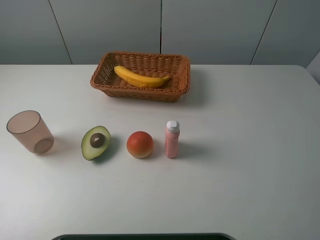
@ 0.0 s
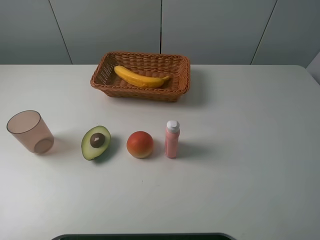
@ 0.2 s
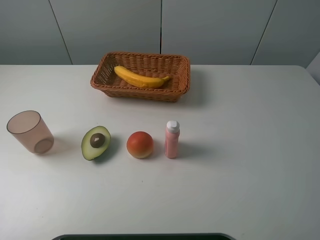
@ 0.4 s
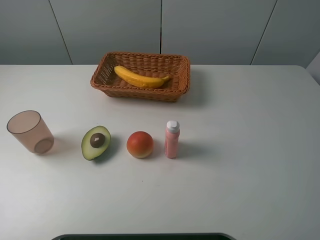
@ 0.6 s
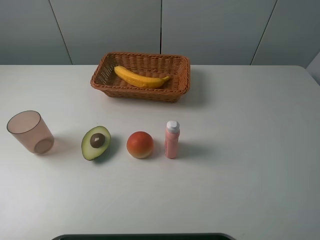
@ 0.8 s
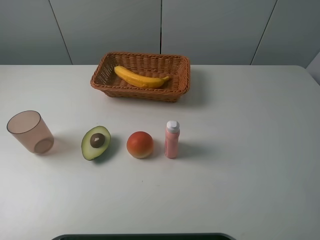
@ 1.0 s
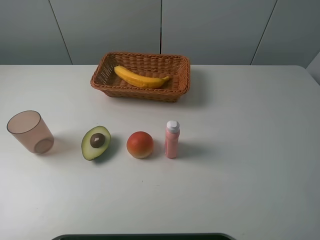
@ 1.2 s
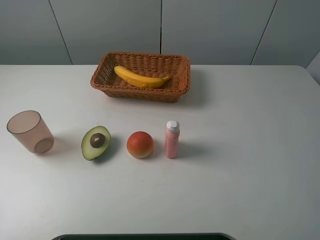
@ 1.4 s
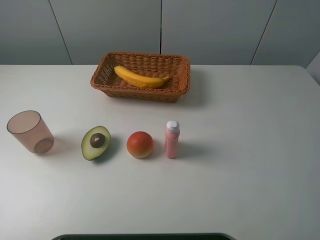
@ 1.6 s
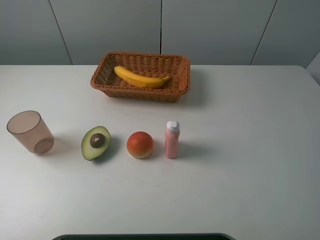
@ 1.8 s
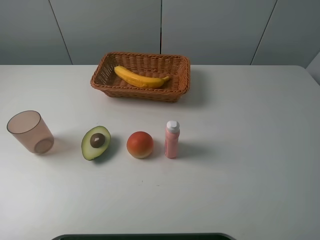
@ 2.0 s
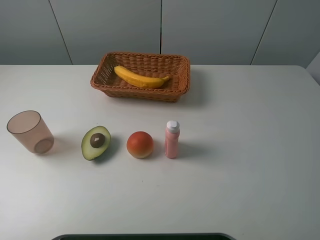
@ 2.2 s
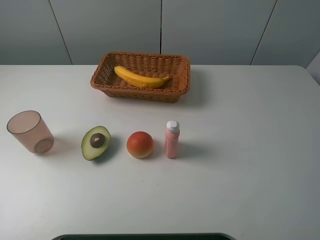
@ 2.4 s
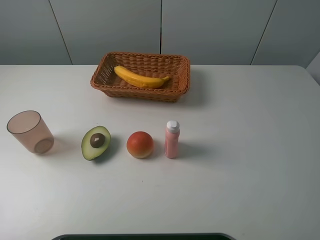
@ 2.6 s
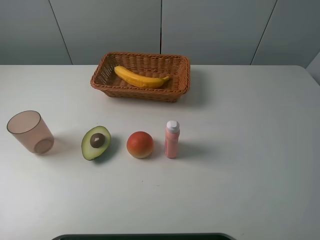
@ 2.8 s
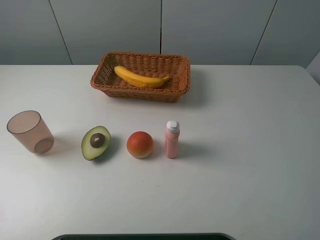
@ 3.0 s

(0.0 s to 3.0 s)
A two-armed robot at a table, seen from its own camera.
Task of the whole recording: randomly pick up an item from the table and put it in the basket.
1.6 s - 3.0 s: Both grippers stay about where they are.

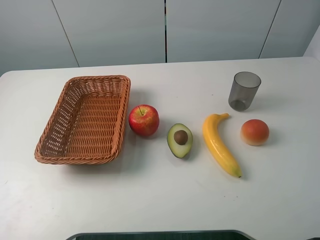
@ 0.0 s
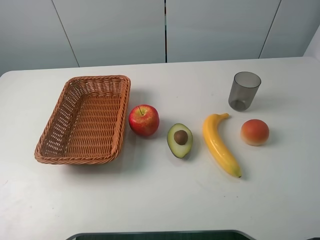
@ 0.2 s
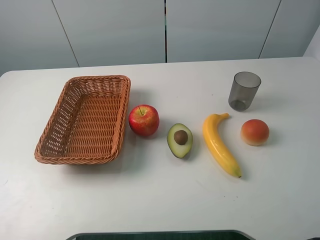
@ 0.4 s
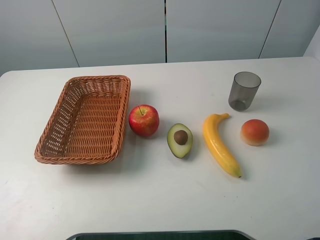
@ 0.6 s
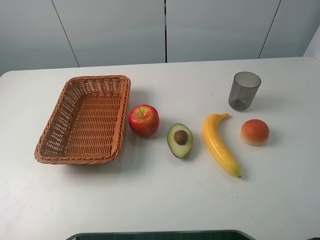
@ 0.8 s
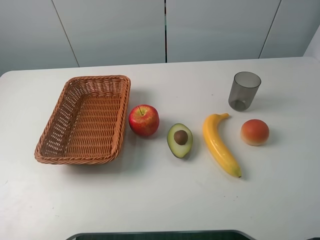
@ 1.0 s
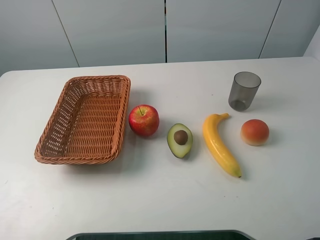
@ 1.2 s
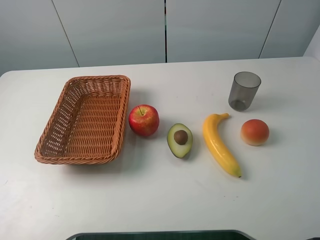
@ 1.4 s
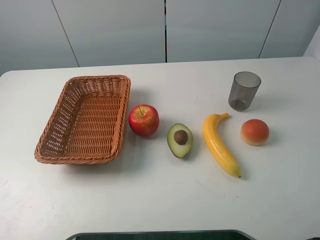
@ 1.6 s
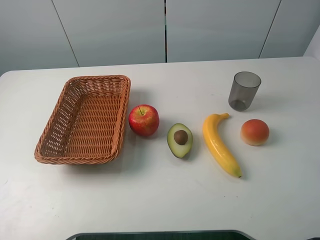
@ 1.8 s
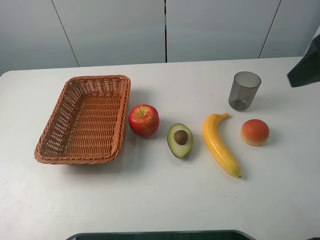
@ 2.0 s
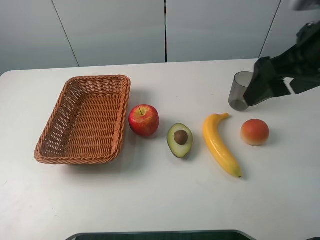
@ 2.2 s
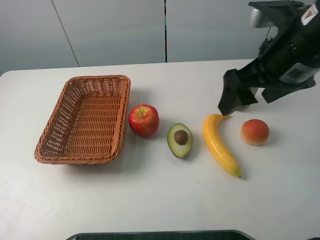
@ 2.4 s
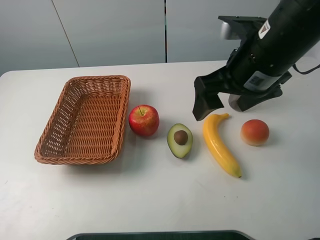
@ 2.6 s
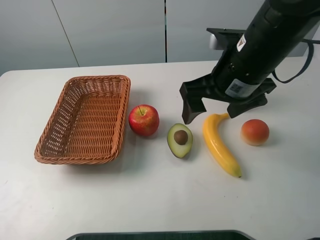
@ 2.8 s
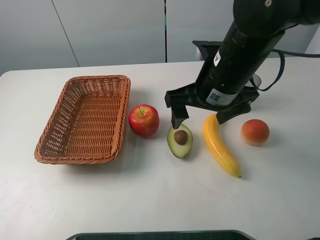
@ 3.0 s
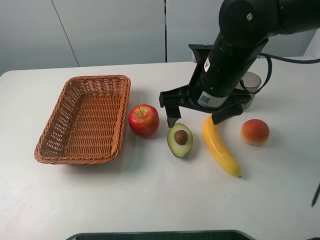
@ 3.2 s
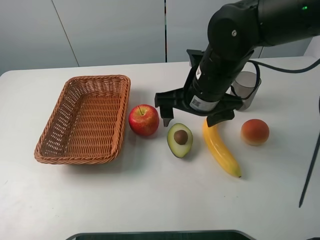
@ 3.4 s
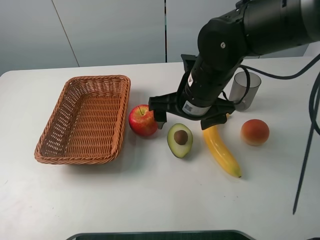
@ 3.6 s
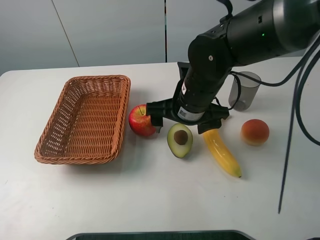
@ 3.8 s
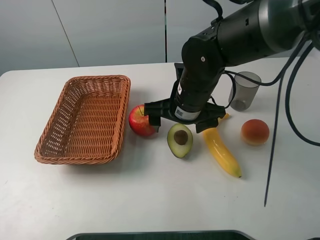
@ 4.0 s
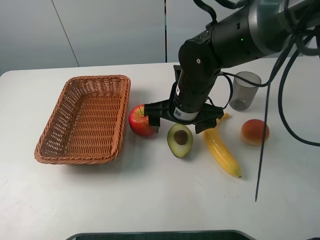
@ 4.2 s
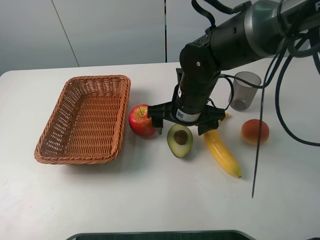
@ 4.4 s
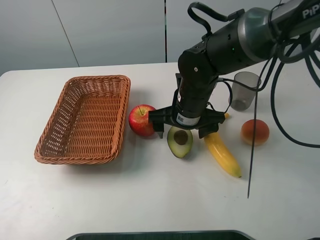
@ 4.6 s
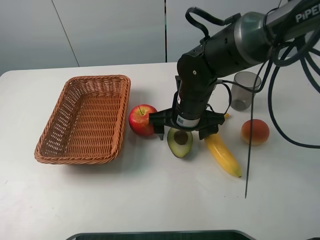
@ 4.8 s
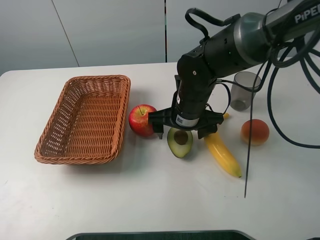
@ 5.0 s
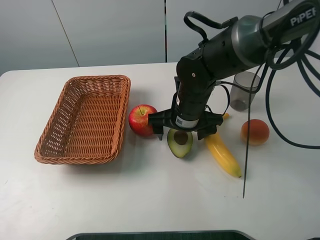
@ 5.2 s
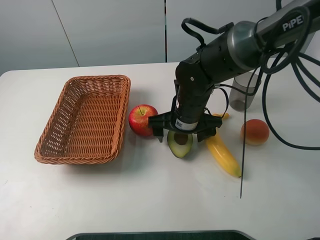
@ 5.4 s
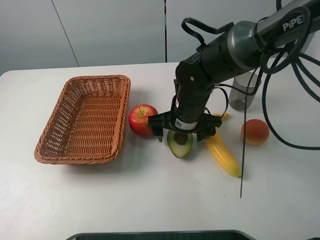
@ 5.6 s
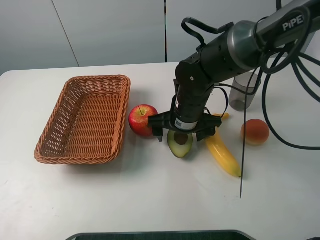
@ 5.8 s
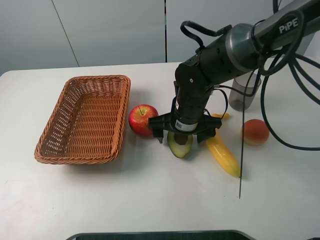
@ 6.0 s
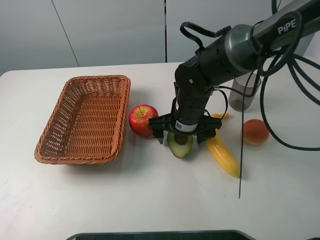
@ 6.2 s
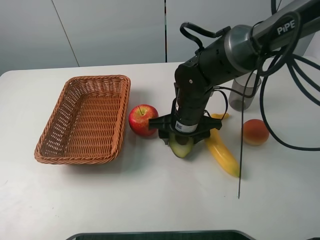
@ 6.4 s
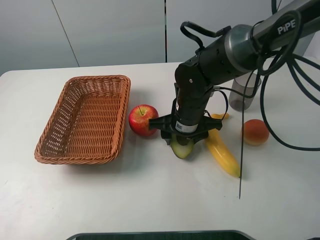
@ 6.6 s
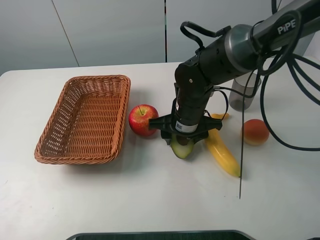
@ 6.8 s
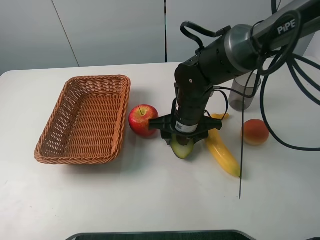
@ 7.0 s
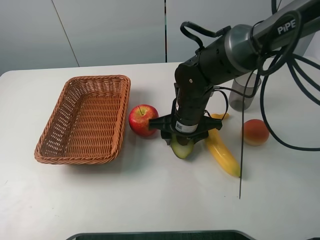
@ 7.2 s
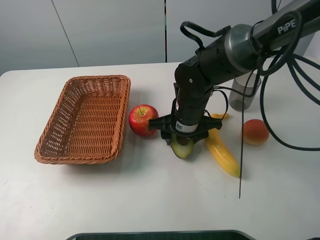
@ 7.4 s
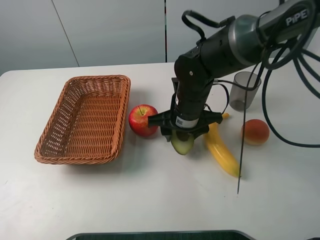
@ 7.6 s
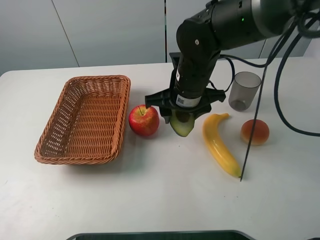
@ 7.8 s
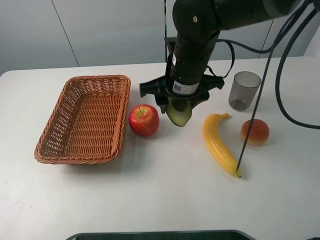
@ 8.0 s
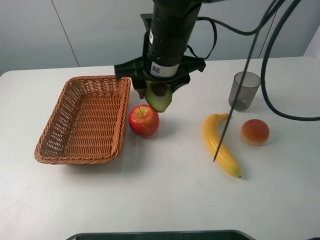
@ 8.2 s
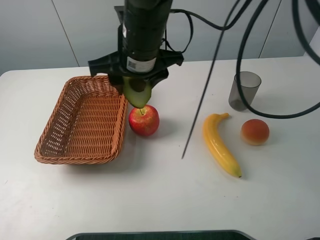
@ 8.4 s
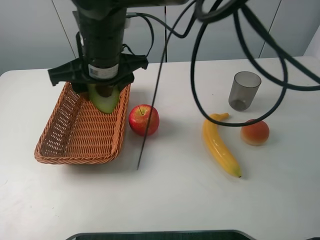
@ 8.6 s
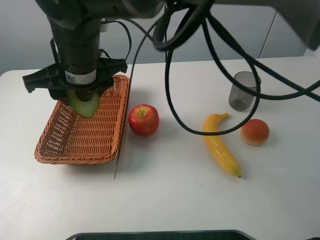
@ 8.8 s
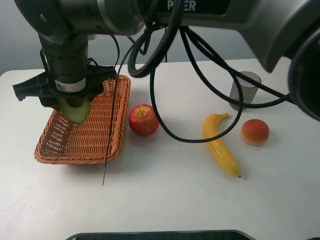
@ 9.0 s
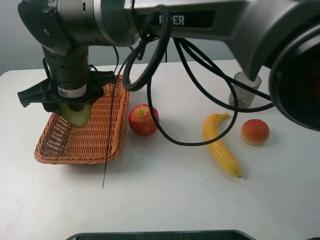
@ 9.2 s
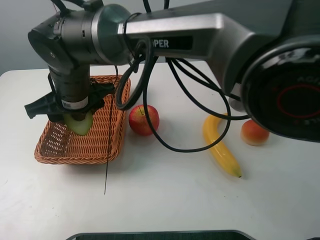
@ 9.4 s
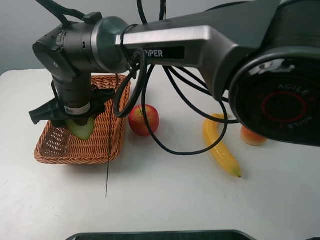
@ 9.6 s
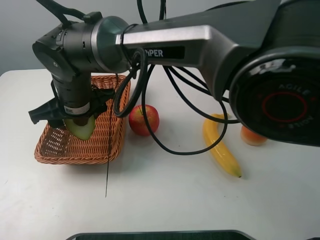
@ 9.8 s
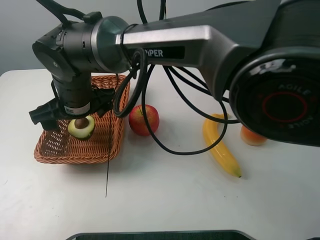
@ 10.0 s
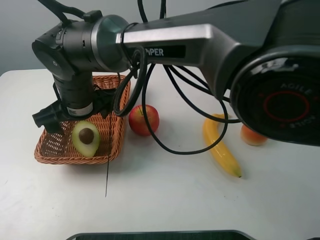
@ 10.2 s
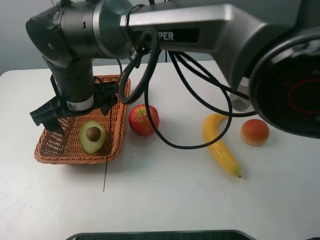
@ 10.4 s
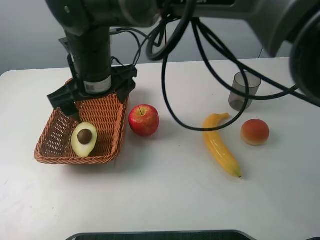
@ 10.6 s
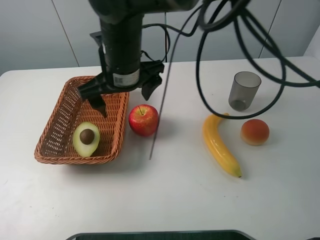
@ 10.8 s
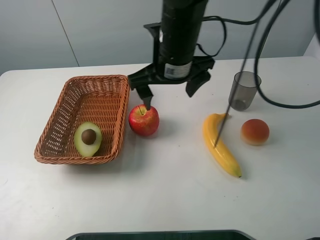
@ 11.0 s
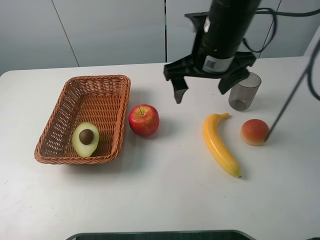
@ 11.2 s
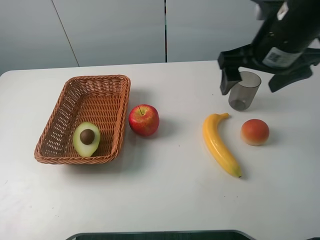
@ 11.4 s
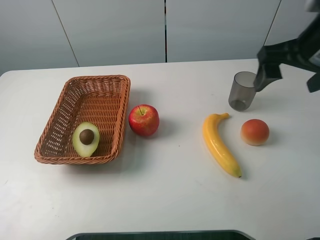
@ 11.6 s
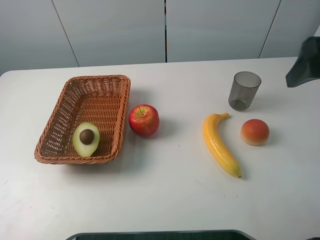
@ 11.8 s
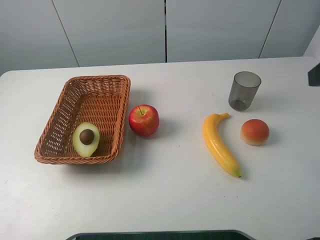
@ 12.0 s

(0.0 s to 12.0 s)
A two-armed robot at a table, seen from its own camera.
Task of the whole recording: randomly pick up an item from the table and put it in the basket.
Step, 0.0 s - 6.6 s: Grasp the avocado with the right gripper.
Step, 6.8 s - 10.6 s: Place the avocado into the basket with the right gripper.
1.6 s - 3.0 s: The right gripper moves to the left, forward and downward, roughly 30 cm.
3.0 s - 4.4 s: The right gripper heads downward, covering roughly 10 cm.
4.4 s - 6.0 s: The grippers move only a little.
6.0 s - 7.6 s: The right gripper closes.
7.6 s - 9.0 s: The right gripper moves to the left and upward, some 20 cm.
9.0 s - 10.4 s: The right gripper opens up.
10.4 s - 12.0 s: The right gripper heads to the right, covering approximately 40 cm.

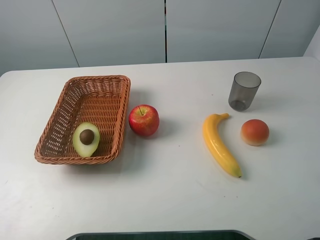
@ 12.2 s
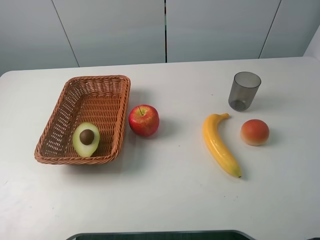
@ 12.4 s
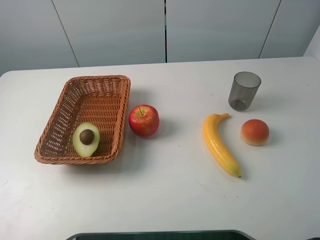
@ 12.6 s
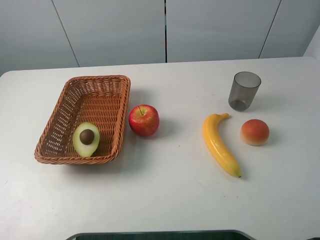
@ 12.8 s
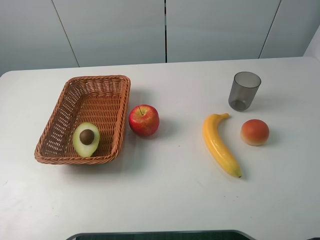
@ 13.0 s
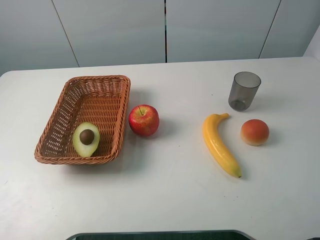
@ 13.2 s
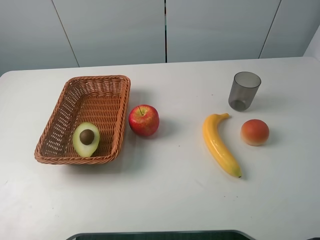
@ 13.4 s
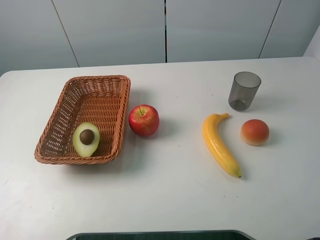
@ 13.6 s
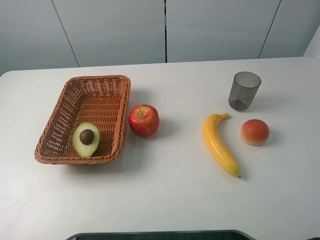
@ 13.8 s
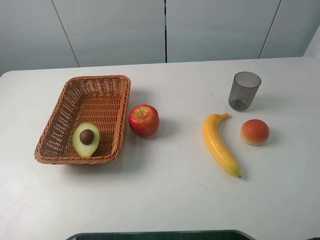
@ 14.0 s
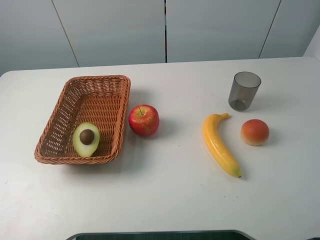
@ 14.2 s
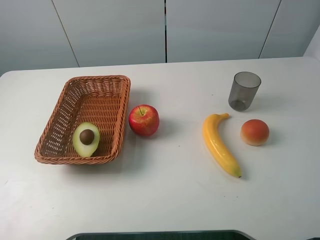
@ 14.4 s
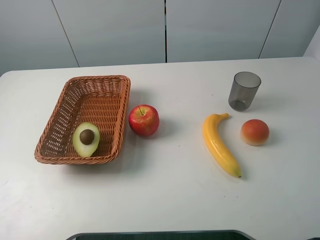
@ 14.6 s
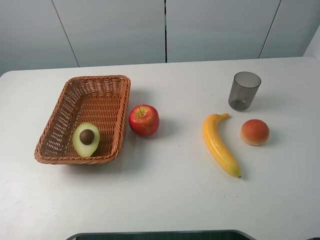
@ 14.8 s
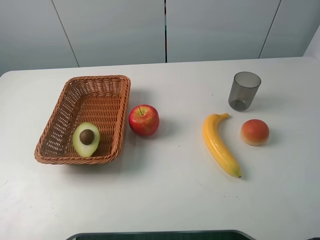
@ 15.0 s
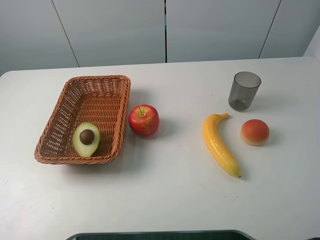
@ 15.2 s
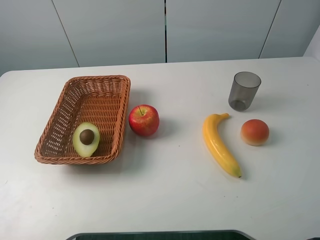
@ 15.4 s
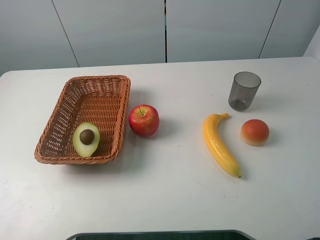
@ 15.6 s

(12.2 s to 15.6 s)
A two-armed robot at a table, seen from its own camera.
Task of the whole recording: randomly pick up an item from the table and put it in the basket.
13.8 s - 15.6 s: Neither gripper changes place.
